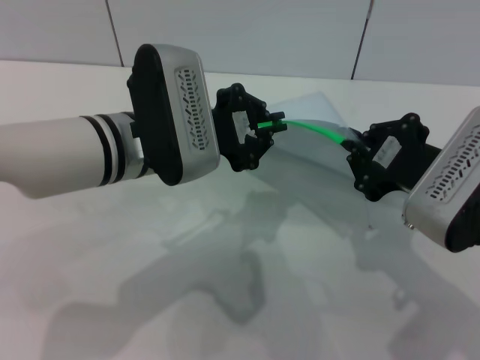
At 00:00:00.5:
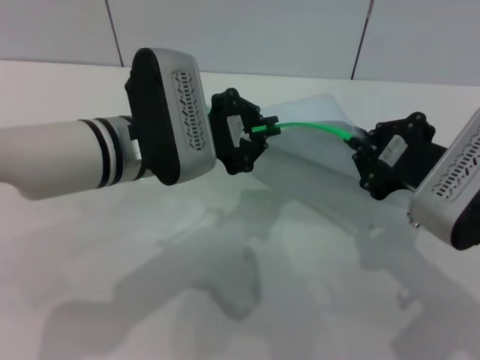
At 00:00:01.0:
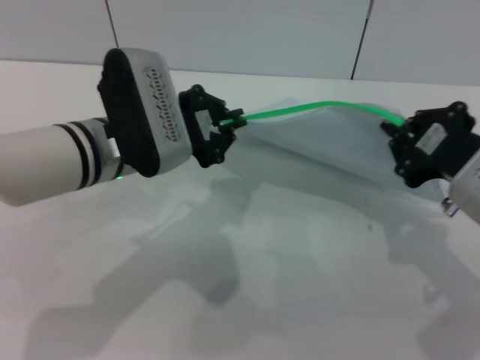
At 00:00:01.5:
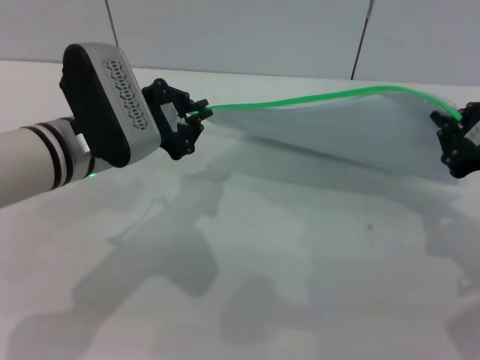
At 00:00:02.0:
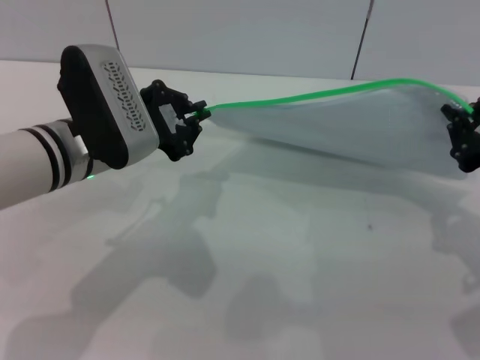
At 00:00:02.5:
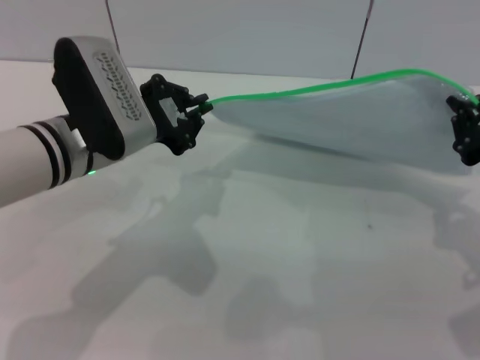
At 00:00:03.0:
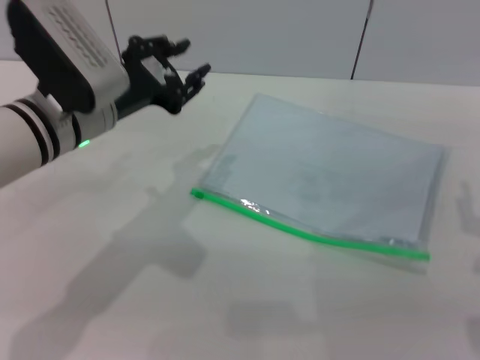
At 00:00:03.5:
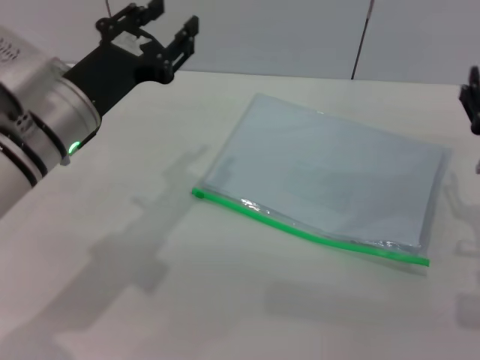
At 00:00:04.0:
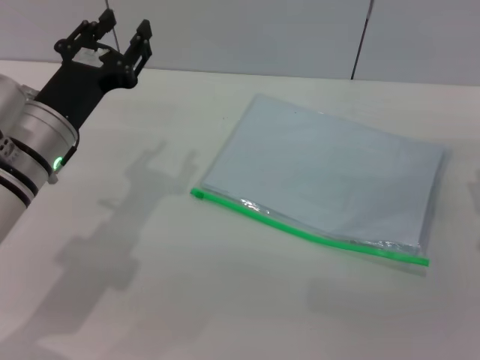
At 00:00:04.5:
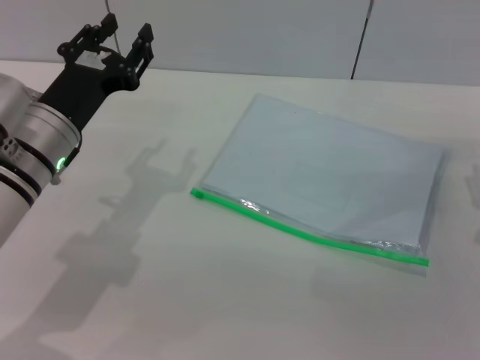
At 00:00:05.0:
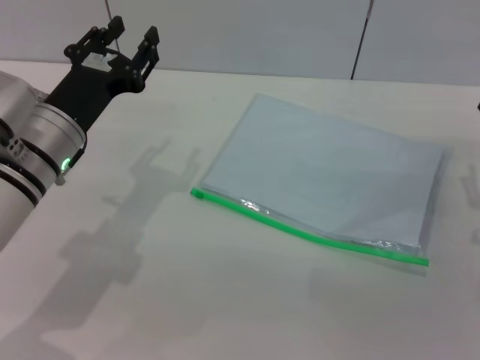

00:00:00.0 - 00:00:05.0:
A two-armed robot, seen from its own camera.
Step, 00:00:00.0 - 00:00:02.5: Pulling up the zipper on the transparent plastic bag with the left gripper to close it.
00:00:00.0 - 00:00:02.5: The left gripper travels to the left by some 5 cm. The right gripper moves to the right, approximately 5 cm.
00:00:02.5 - 00:00:05.0: The right gripper moves downward, about 10 cm, and opens its fingers. The left gripper opens up.
